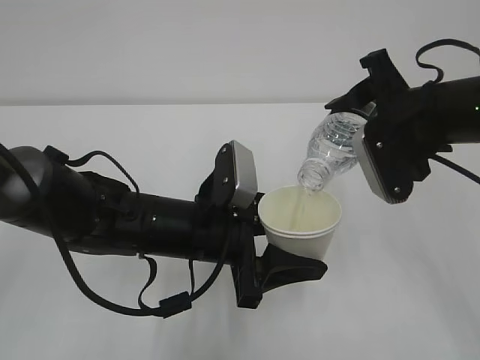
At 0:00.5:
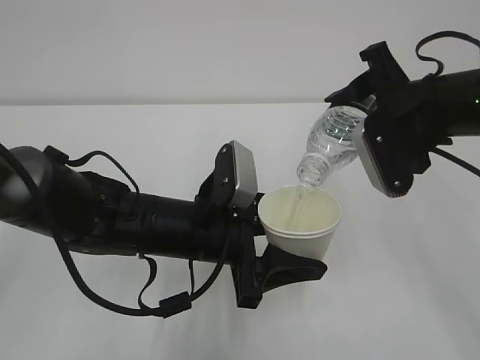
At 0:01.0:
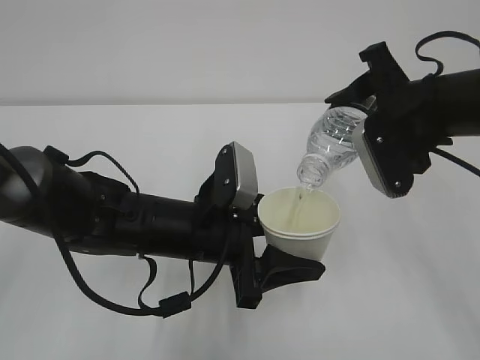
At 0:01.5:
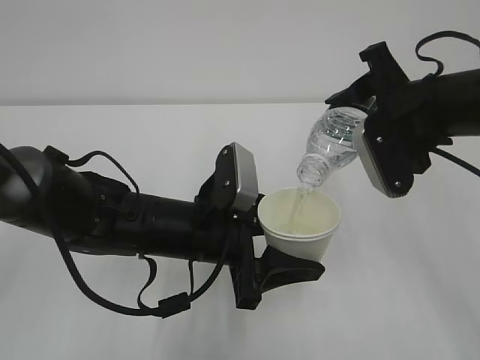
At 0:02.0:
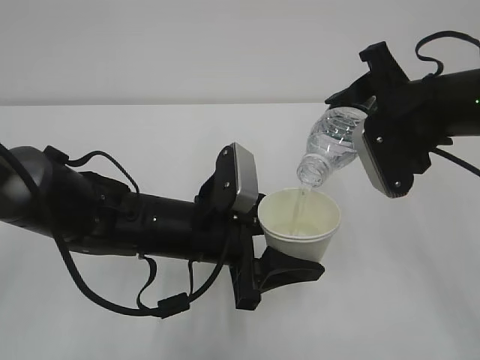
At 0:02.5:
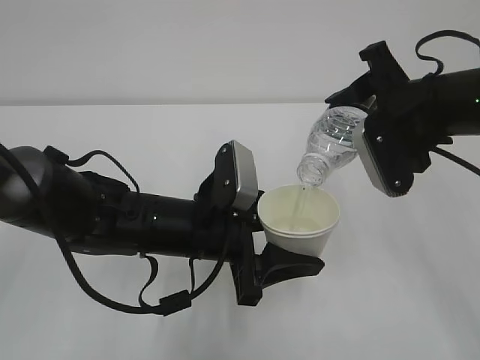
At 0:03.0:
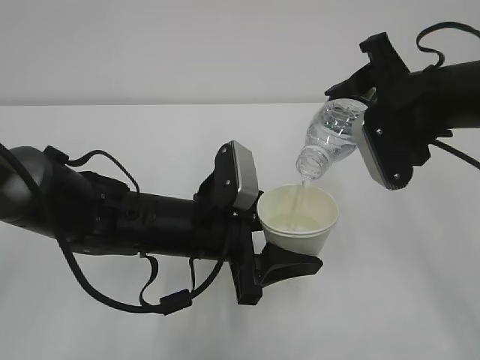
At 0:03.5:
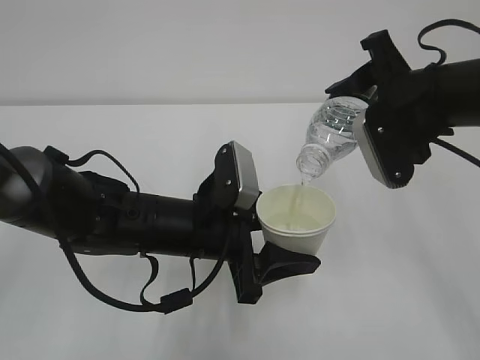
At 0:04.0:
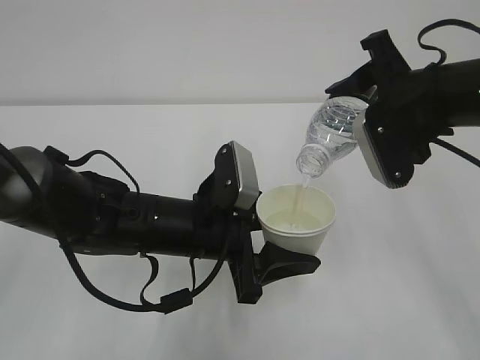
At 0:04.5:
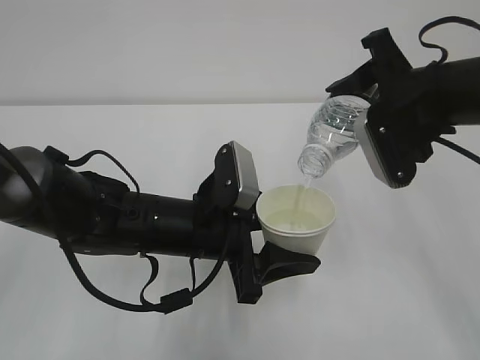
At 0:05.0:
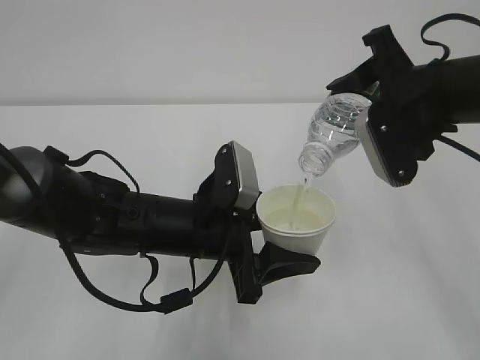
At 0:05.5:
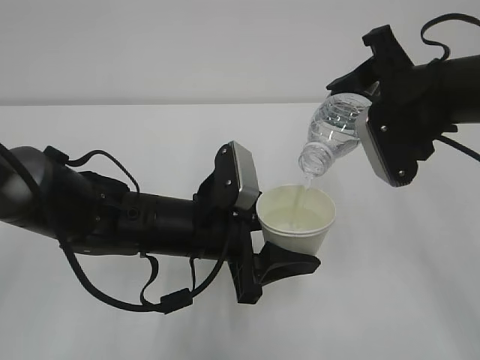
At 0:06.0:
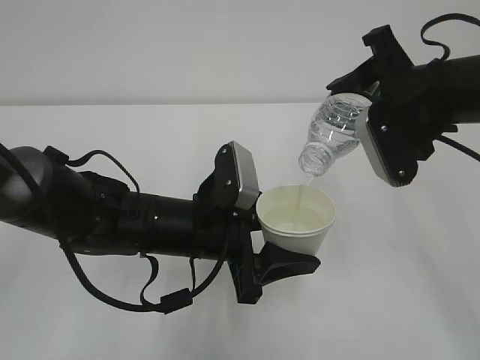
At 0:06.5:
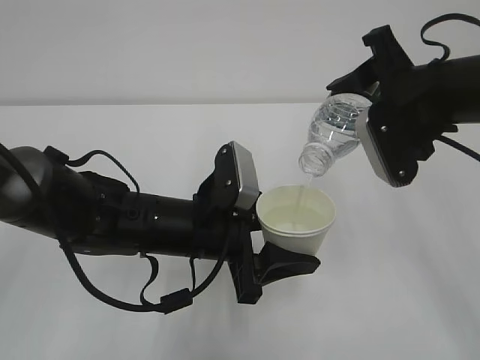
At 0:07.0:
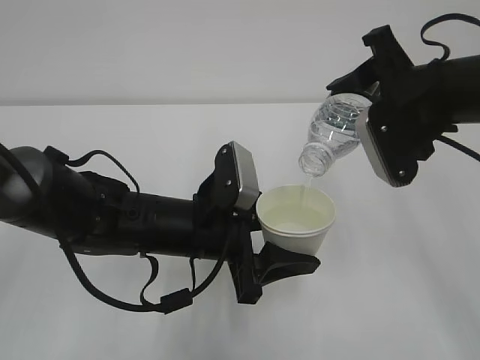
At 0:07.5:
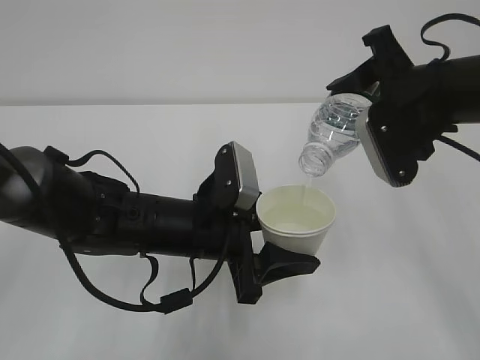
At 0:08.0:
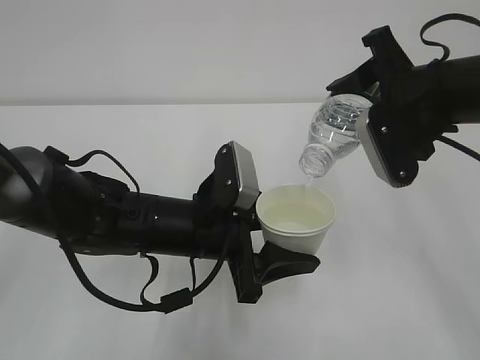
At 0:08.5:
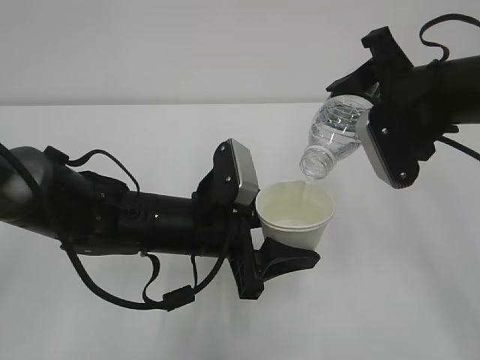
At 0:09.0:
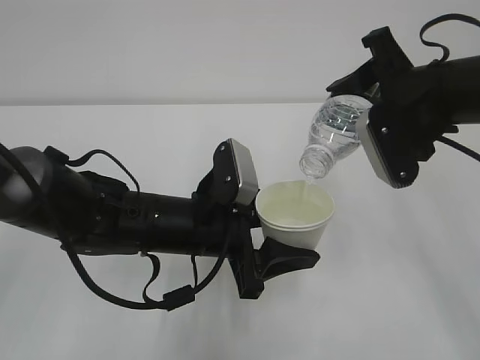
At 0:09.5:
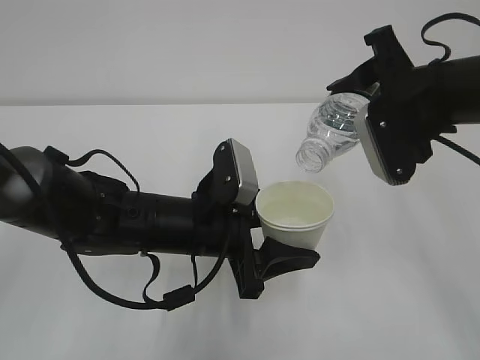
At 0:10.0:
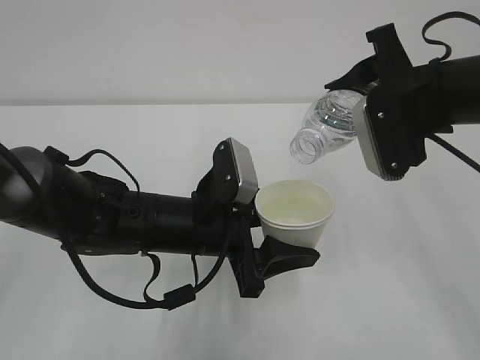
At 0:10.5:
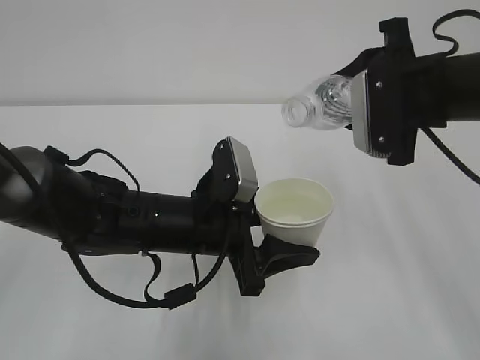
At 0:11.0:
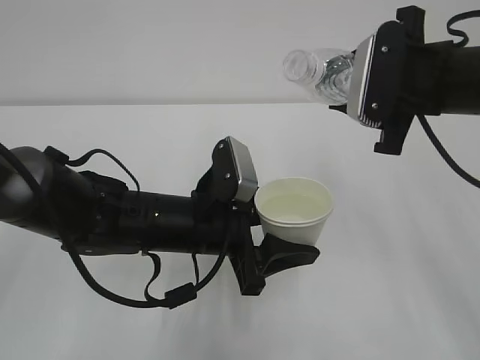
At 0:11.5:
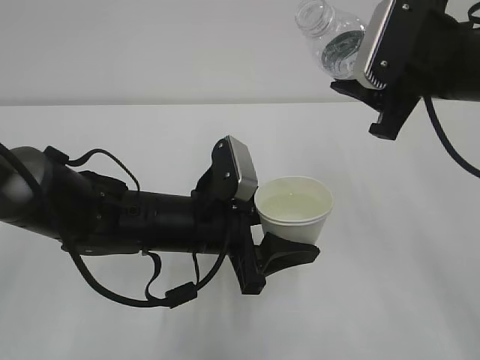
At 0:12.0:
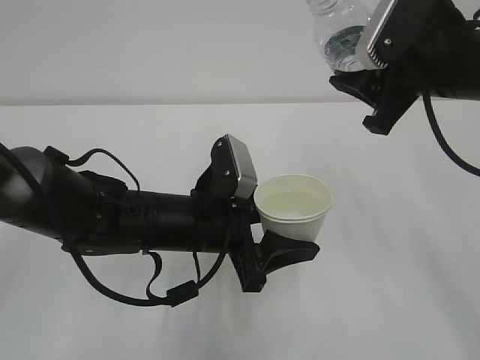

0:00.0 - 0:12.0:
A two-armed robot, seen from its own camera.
0:00.0 - 0:02.0: Both grippers stay put.
0:02.0 - 0:08.0: Both grippers stay put.
0:08.0 - 0:10.0: There are only small adjustments of the grippers.

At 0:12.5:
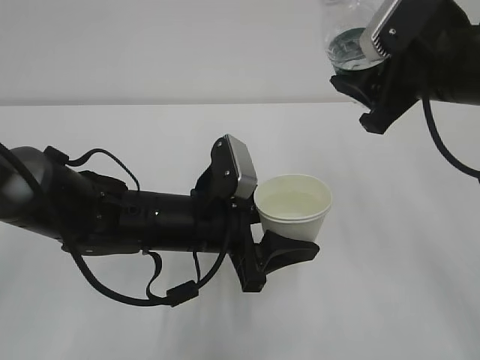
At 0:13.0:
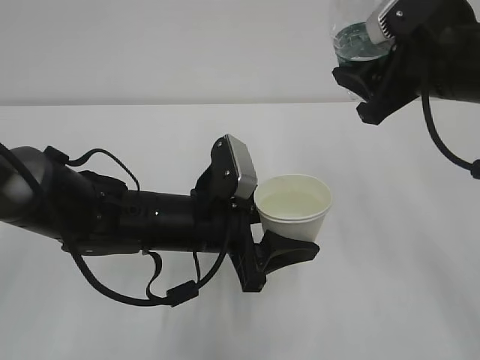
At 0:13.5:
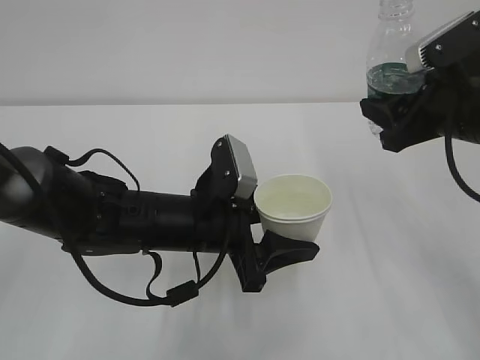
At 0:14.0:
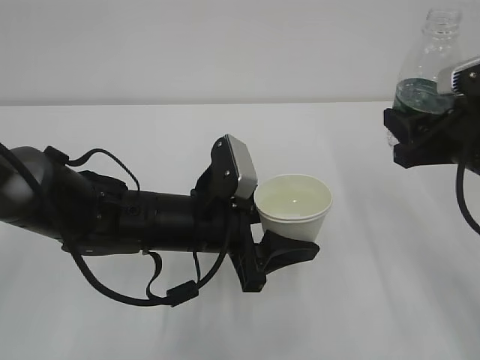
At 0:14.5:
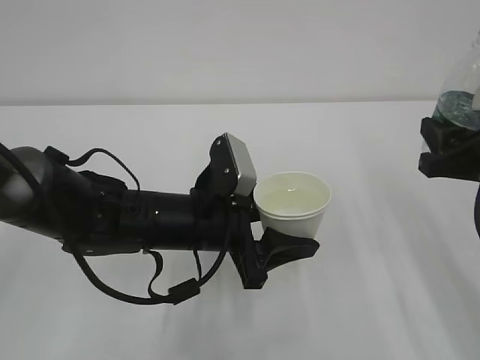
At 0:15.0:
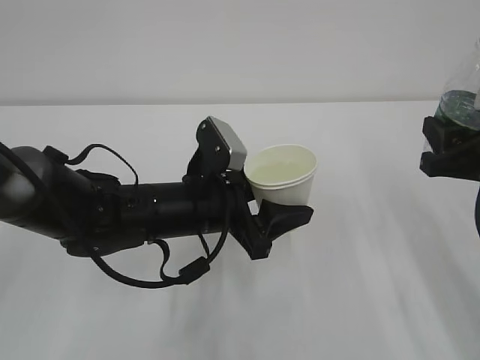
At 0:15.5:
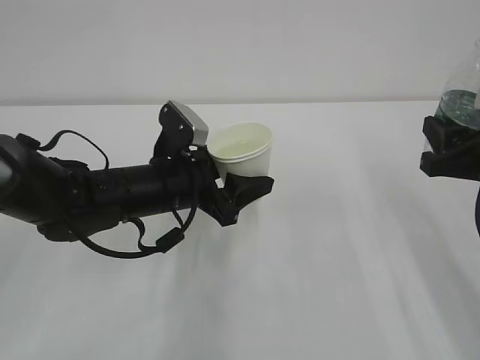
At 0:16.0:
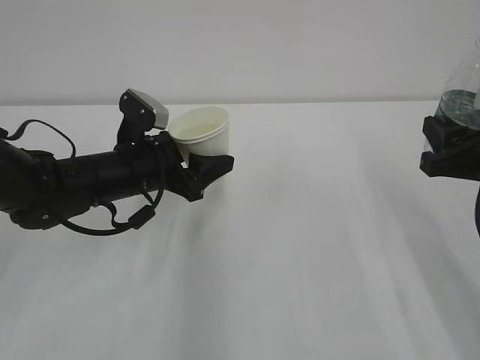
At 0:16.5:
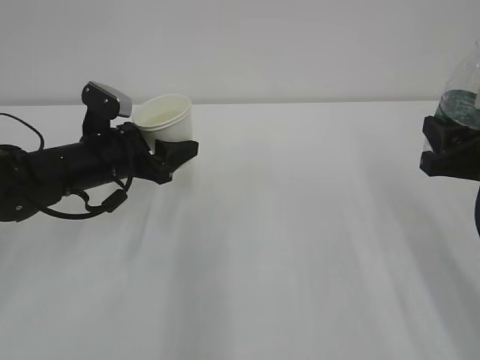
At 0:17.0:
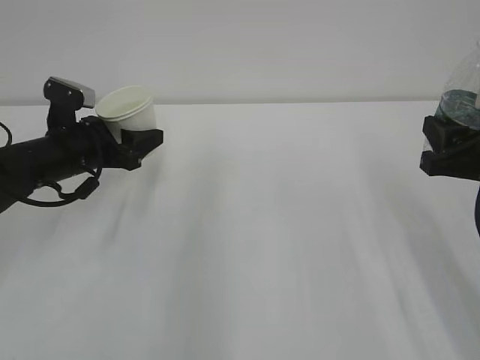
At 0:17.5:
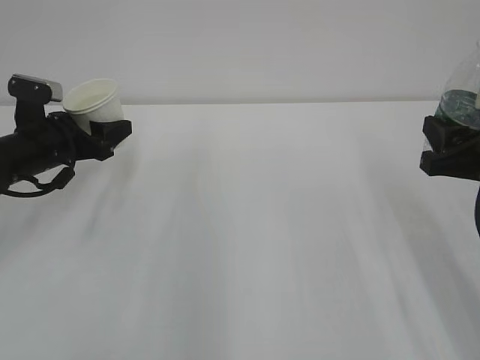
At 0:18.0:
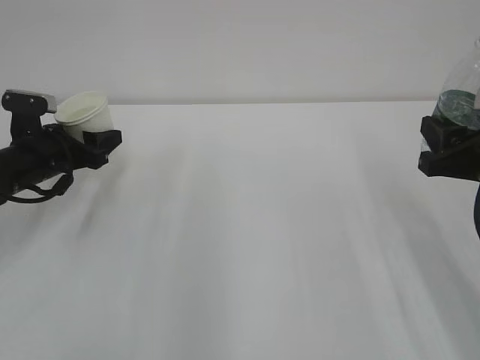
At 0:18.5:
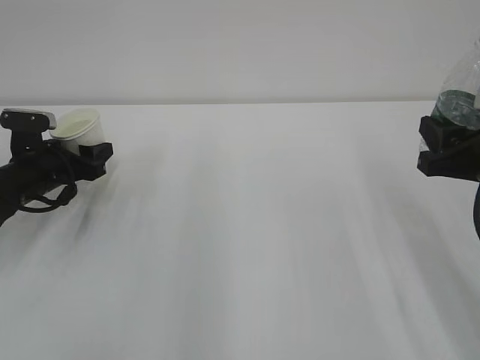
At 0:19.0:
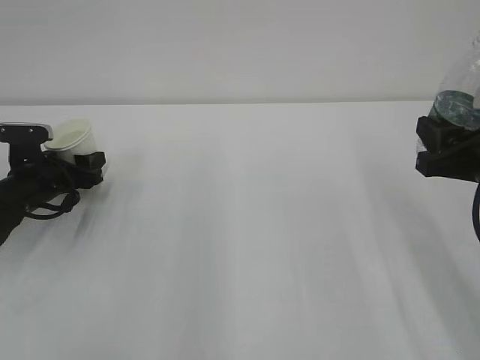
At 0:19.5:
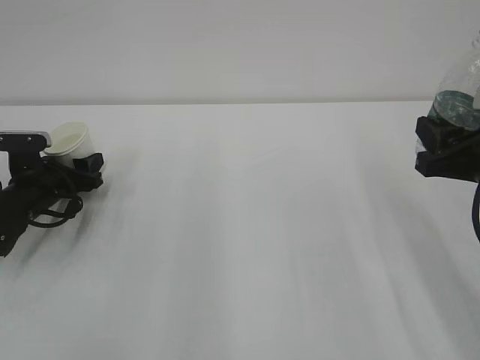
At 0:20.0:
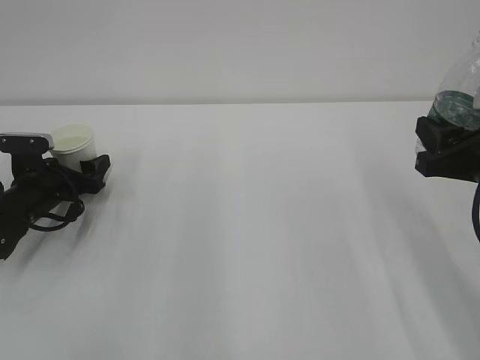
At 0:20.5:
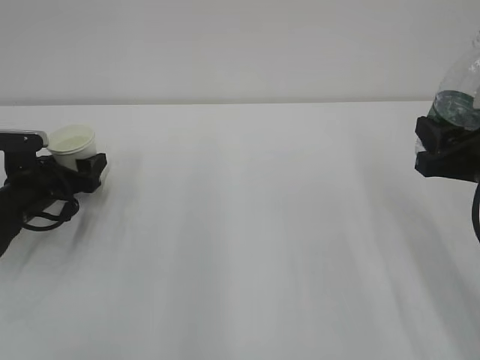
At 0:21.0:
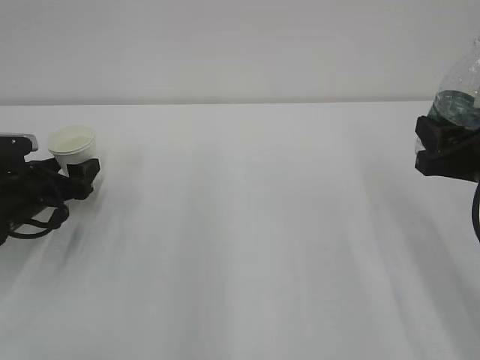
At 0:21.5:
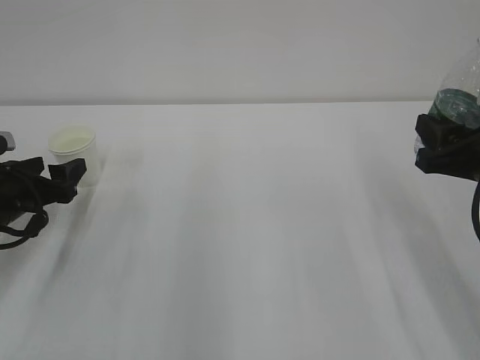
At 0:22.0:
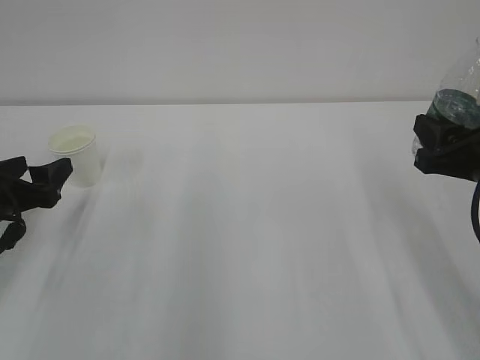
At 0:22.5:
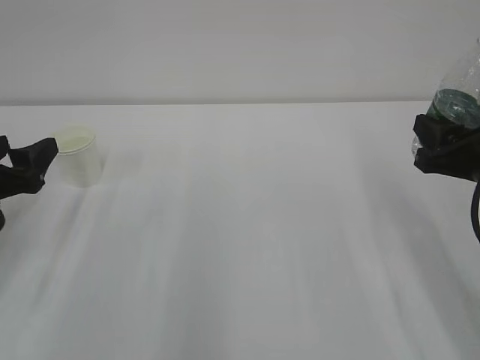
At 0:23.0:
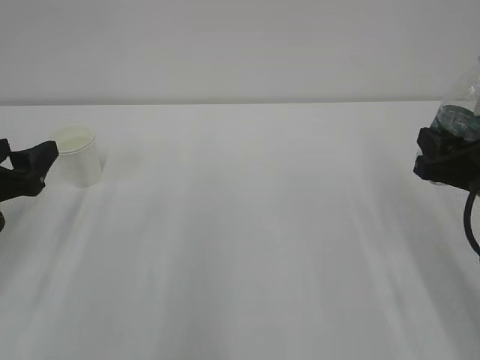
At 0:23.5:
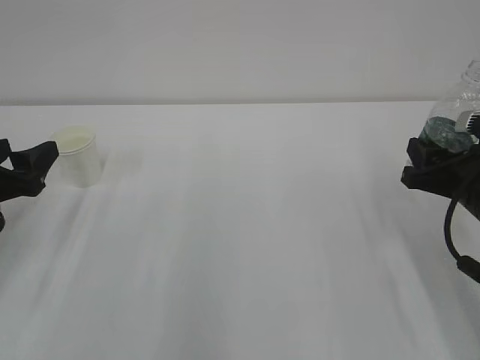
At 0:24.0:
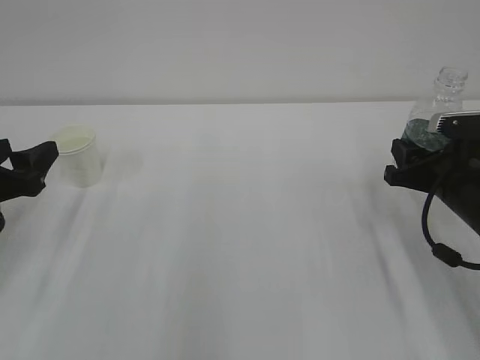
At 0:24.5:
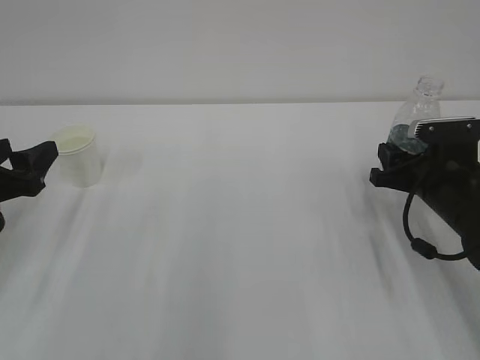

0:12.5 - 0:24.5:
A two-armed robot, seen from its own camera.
0:12.5 - 0:14.5: The right gripper moves downward, to the right and backward, some 10 cm.
0:14.5 - 0:16.5: The left gripper is displaced to the left and forward by about 15 cm.
0:16.5 - 0:18.5: The left gripper shifts approximately 10 cm to the left.
0:18.5 - 0:20.5: The left gripper opens up.
0:20.5 - 0:22.5: The left gripper heads backward and upward, covering about 15 cm.
0:22.5 - 0:24.5: The right gripper heads downward and forward, covering some 10 cm.

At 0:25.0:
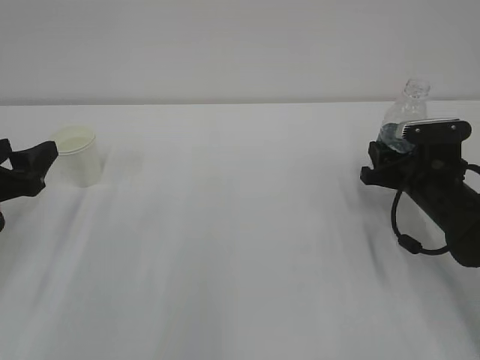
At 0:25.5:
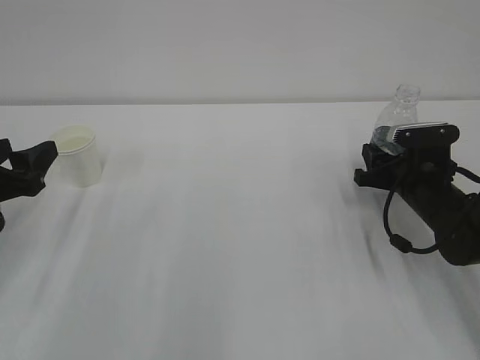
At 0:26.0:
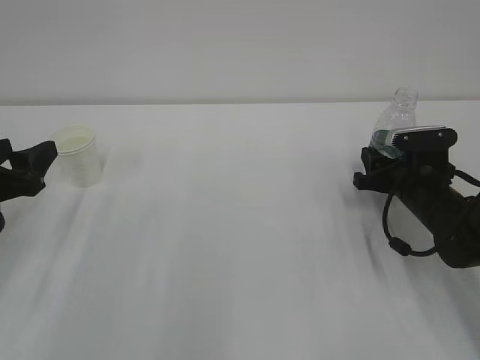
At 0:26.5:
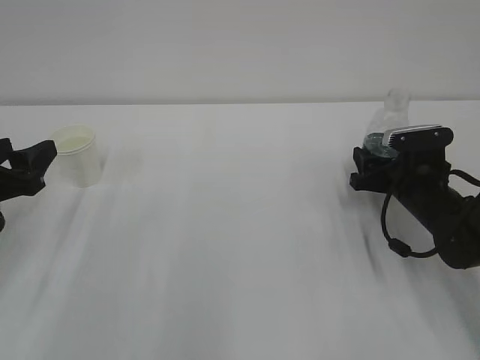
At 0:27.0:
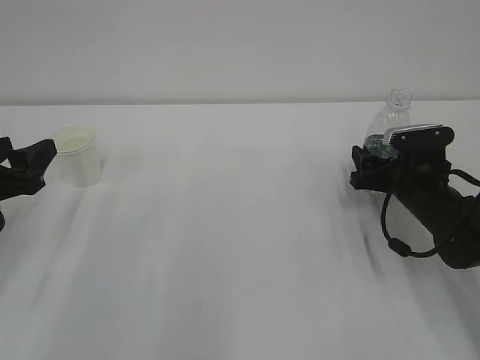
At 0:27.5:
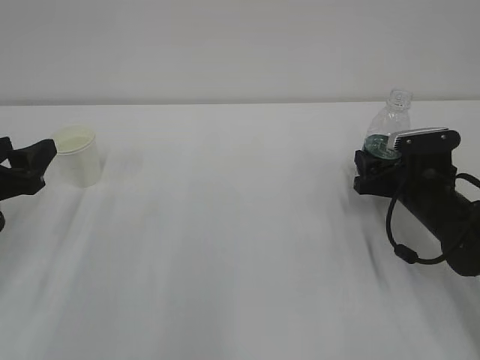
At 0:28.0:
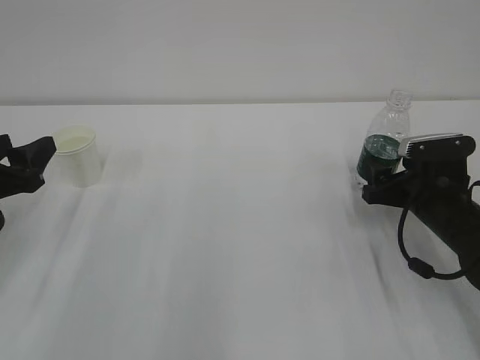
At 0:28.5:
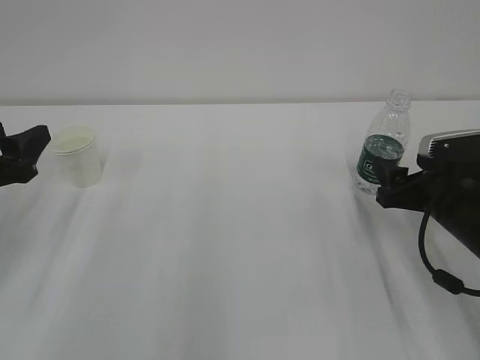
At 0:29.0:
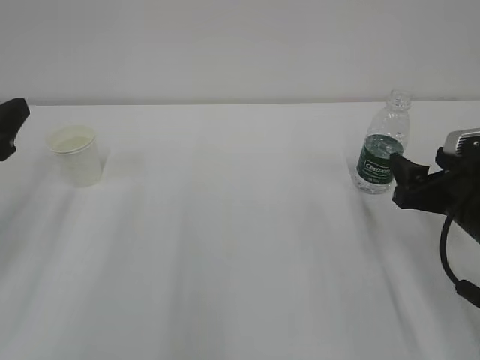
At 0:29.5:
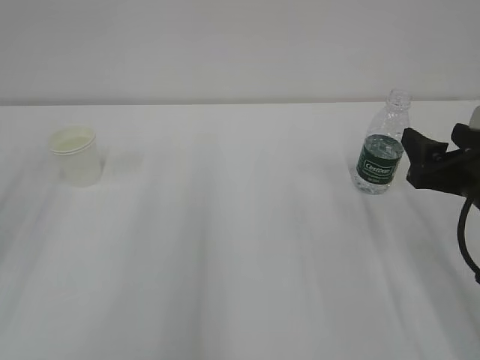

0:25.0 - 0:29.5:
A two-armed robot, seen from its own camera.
0:25.0 - 0:27.0: The right gripper opens up.
0:27.0 - 0:29.5: The left gripper moves upward, some 10 cm. The right gripper is displaced backward and upward by roughly 15 cm.
